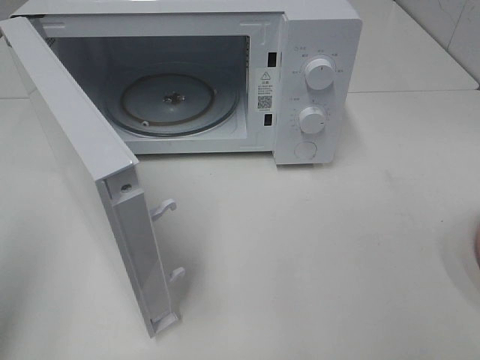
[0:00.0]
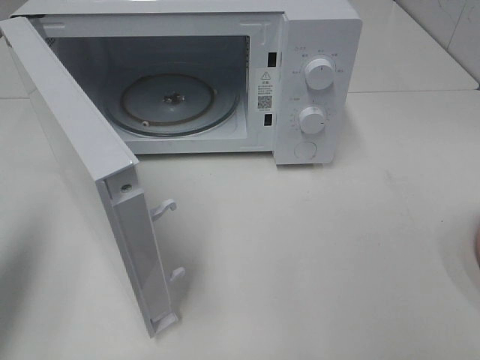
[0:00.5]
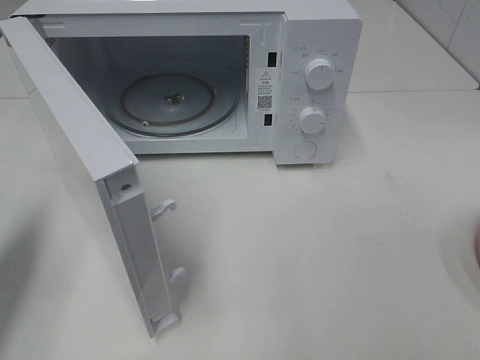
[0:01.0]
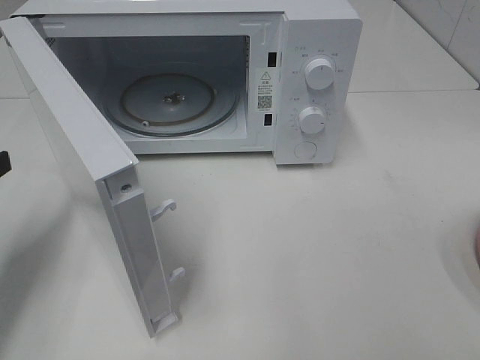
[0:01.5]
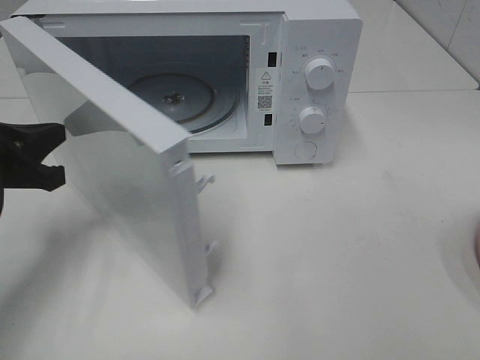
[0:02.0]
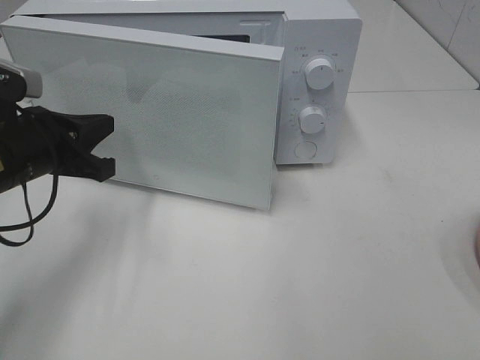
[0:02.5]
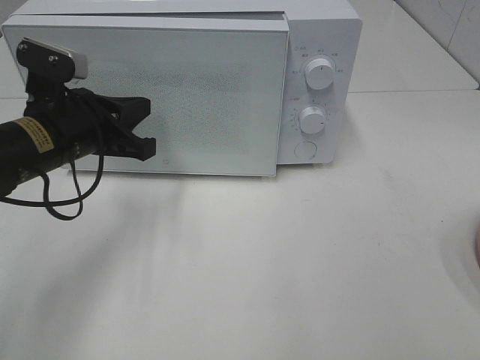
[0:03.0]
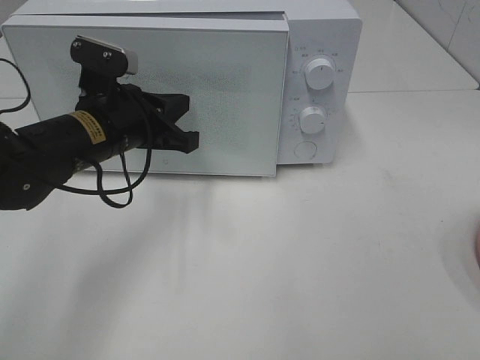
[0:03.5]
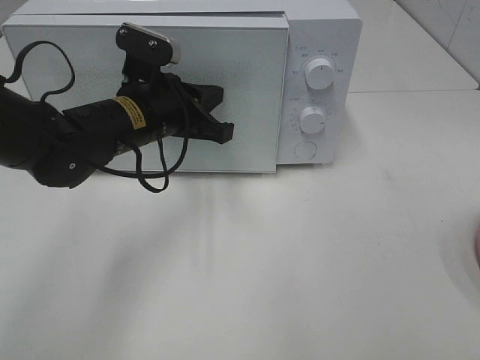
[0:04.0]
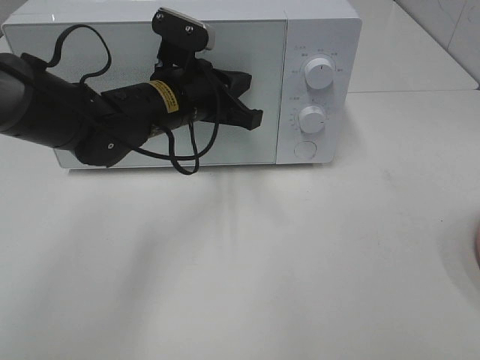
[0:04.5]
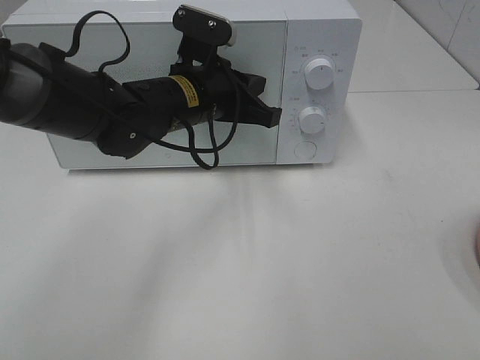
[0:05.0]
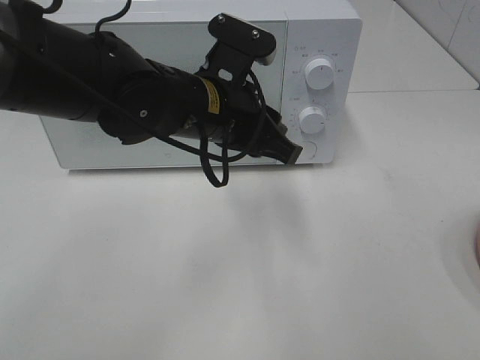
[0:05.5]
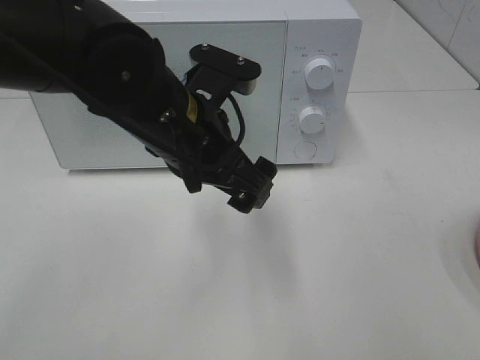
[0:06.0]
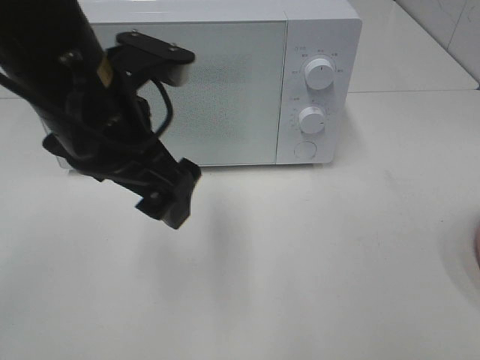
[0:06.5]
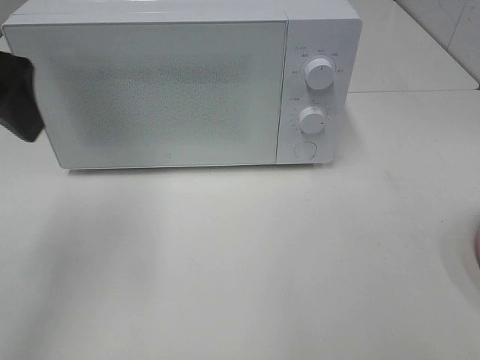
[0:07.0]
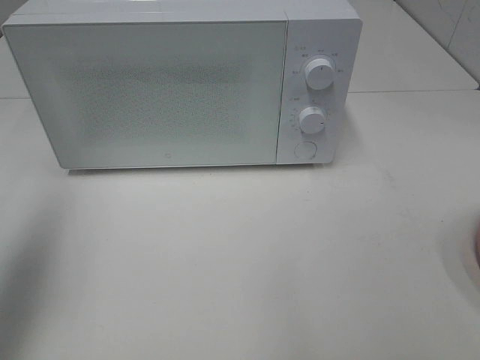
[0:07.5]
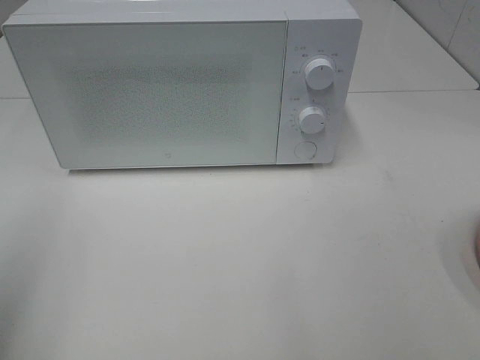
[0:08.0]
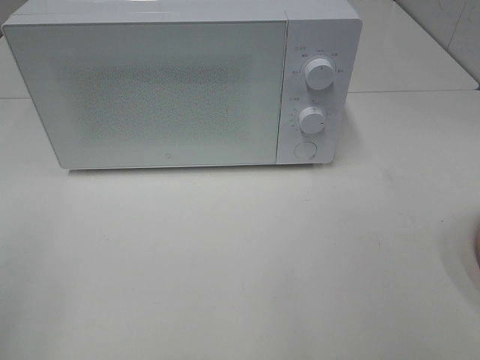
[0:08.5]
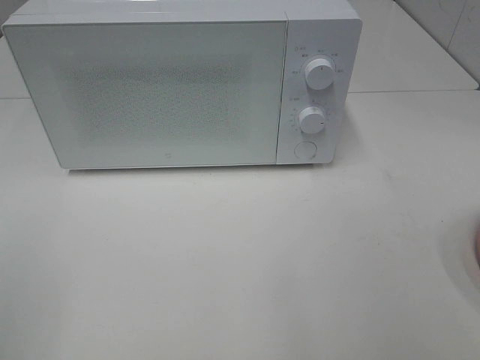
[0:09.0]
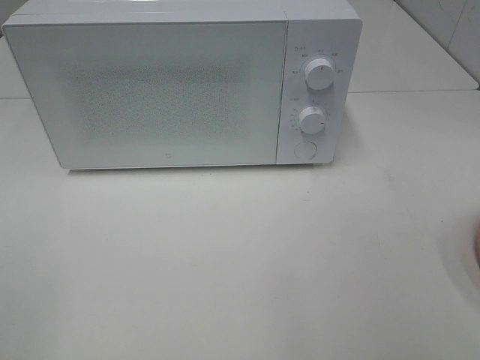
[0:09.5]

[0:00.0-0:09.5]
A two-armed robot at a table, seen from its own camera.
Task of the whole recording: Heat the burger.
Step, 0:00.0 to 0:05.0: Left hand: close the microwave door.
0:00.0 to 0:02.0: The left gripper goes about 20 cm forward and downward.
0:02.0 to 0:04.0: The left gripper goes some 20 cm to the right and forward.
0:04.0 to 0:05.5: The left gripper travels to the right by roughly 10 cm, and opens up.
0:05.5 to 0:07.5: The left gripper is displaced to the left and upward by roughly 35 cm, and opens its fingers.
0:07.5 to 0:09.5: The left gripper travels backward by about 20 cm.
